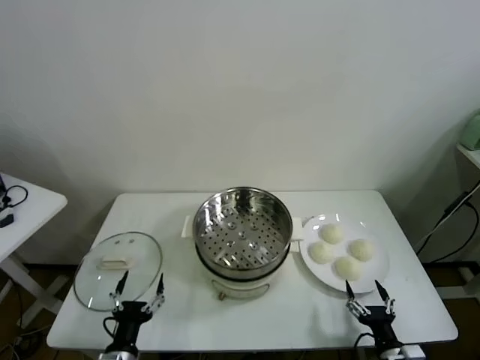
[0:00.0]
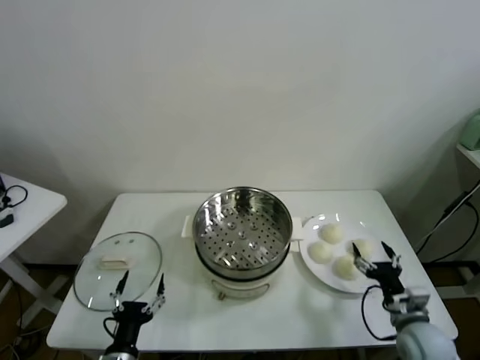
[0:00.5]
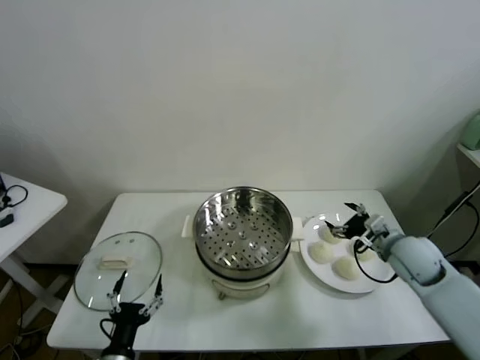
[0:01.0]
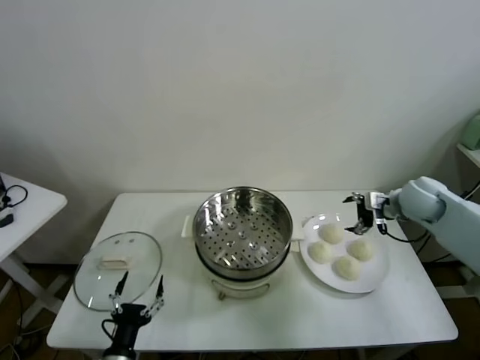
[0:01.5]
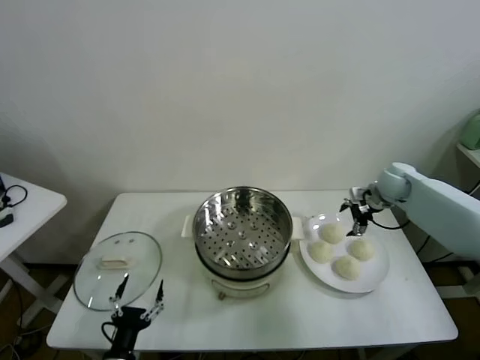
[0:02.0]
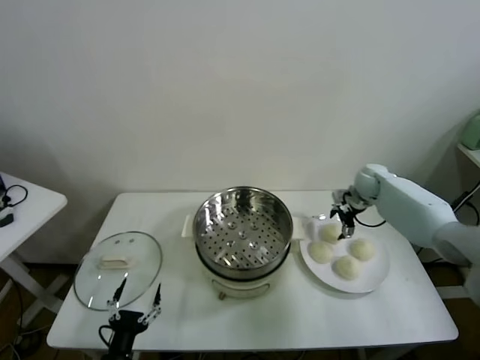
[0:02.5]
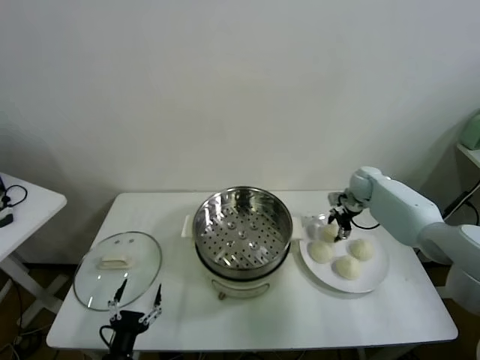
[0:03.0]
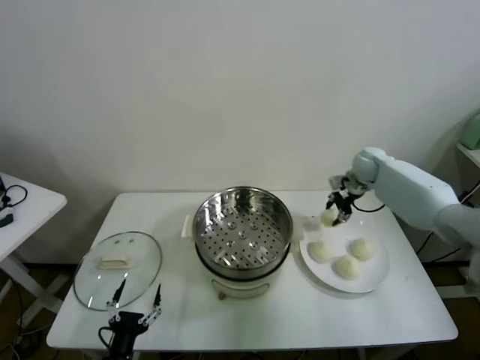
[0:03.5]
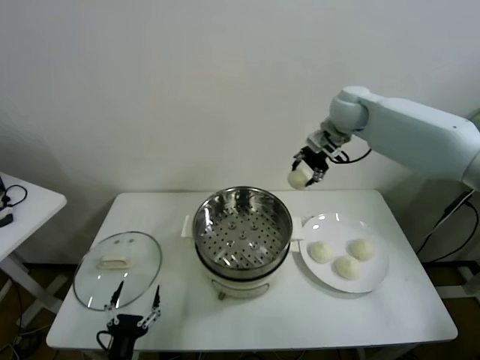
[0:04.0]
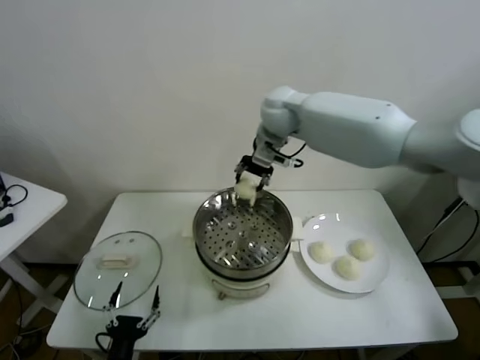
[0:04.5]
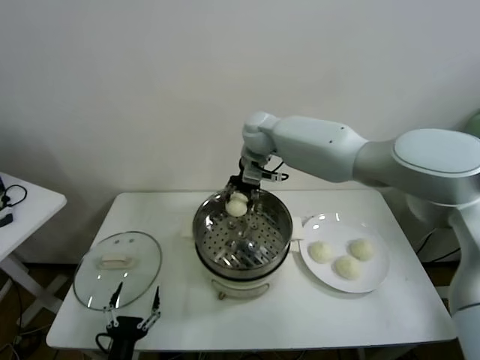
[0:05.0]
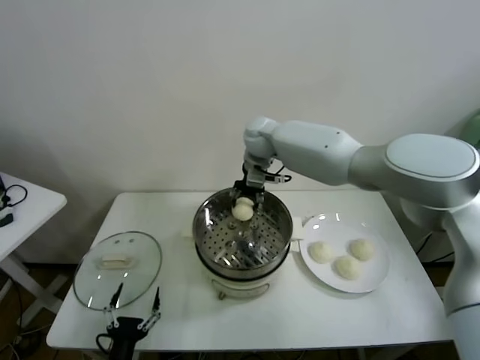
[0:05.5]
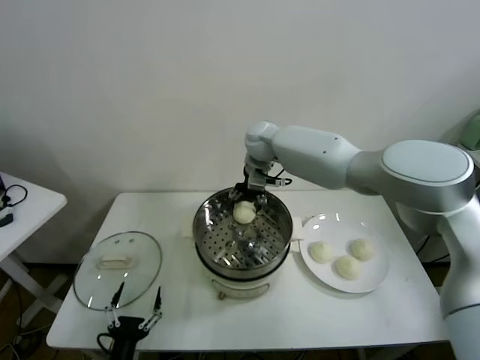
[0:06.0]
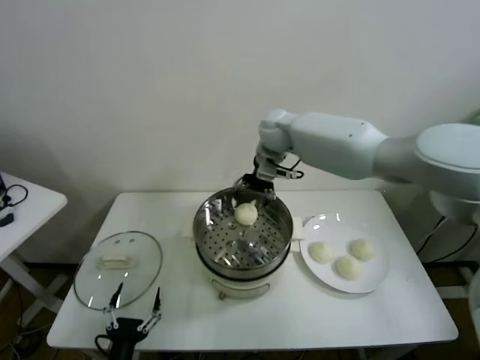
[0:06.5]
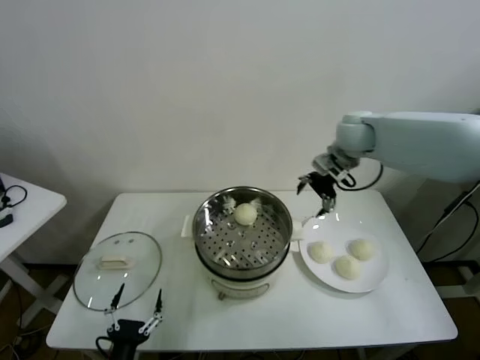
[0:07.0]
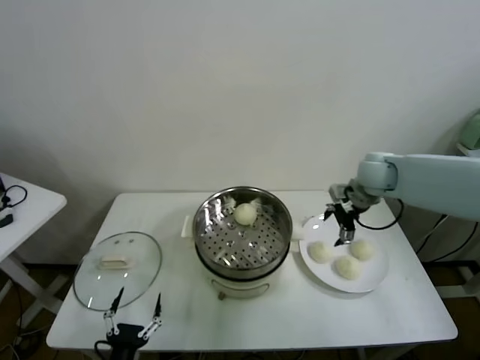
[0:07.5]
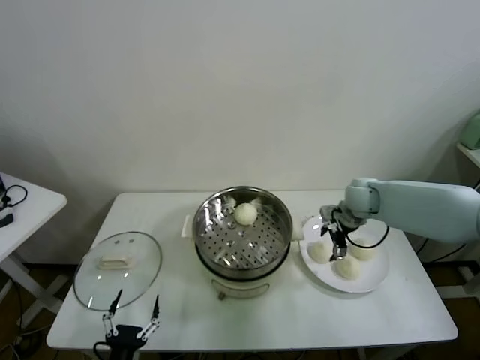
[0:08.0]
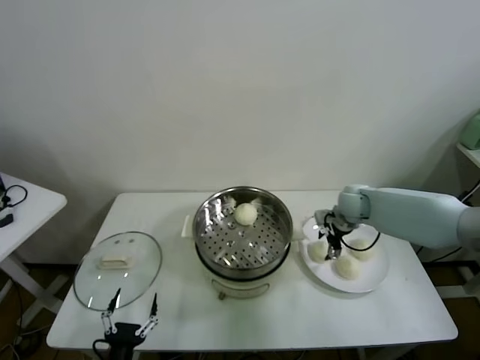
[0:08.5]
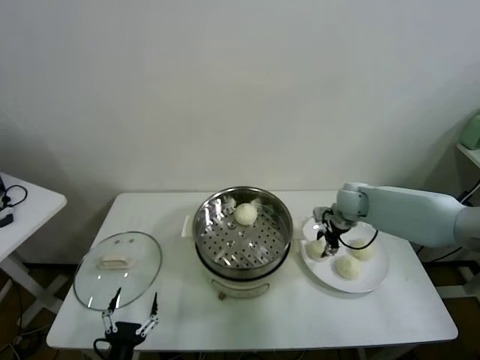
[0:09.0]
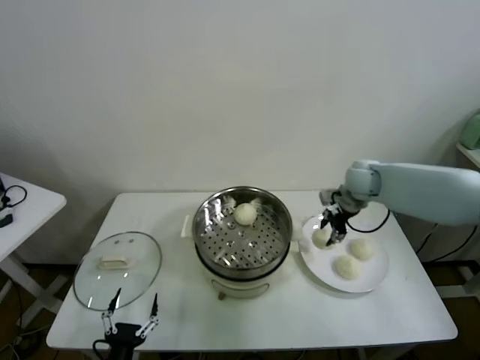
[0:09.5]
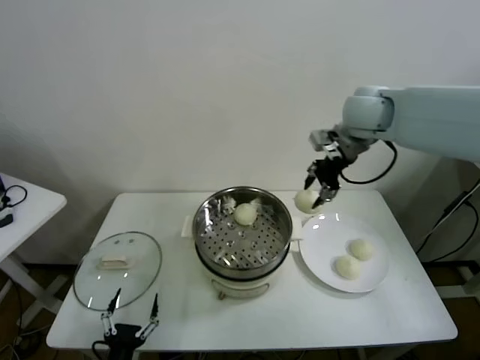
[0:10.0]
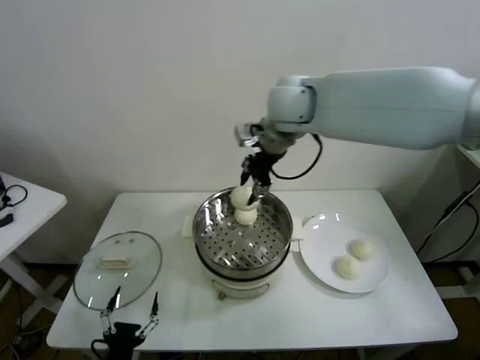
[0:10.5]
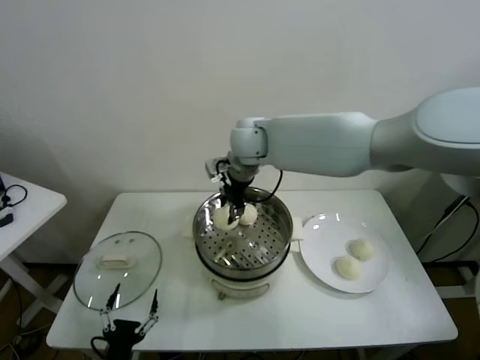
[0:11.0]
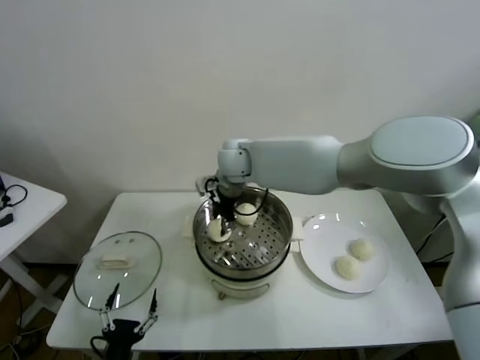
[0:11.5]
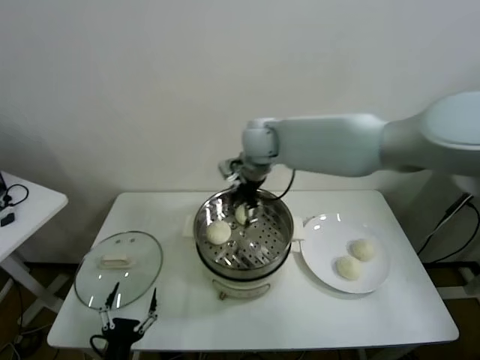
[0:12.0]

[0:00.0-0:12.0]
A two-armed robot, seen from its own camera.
Task of the whole recording: take steamed baozi put them in steamer.
Step, 0:00.0 to 0:02.5: Grasp the baozi in the plate with right gripper.
Step, 0:03.5 to 0:06.0: Place the baozi on the steamer with right gripper.
Step, 0:06.5 to 0:08.5: Grasp the baozi in the plate with right gripper.
Step, 0:09.0 to 0:11.5: Place the baozi on the steamer with right gripper.
0:02.0 to 0:04.0: The right gripper is displaced upward and to the left by about 30 cm, and closes up.
0:04.0 to 0:06.0: The right gripper shifts some 20 cm to the left and downward, and opens.
0:06.0 to 0:08.0: The right gripper shifts about 25 cm to the right and downward.
0:08.0 to 0:10.0: The right gripper travels upward by approximately 25 cm, and closes.
0:10.0 to 0:12.0: The right gripper heads to the left and downward, covering some 20 cm, and opens its fingers.

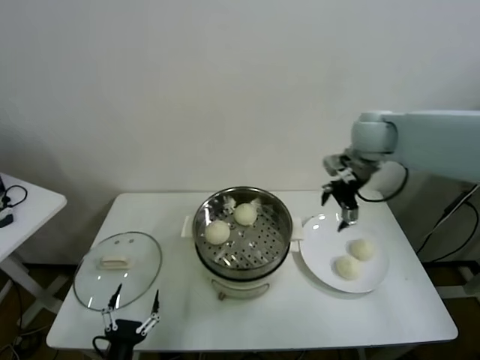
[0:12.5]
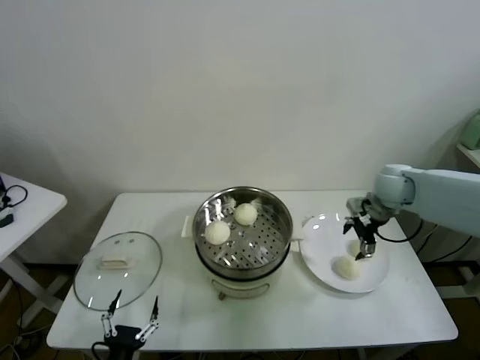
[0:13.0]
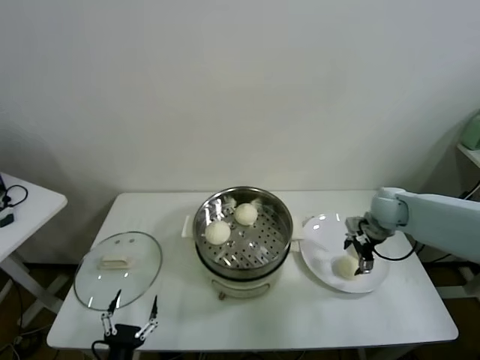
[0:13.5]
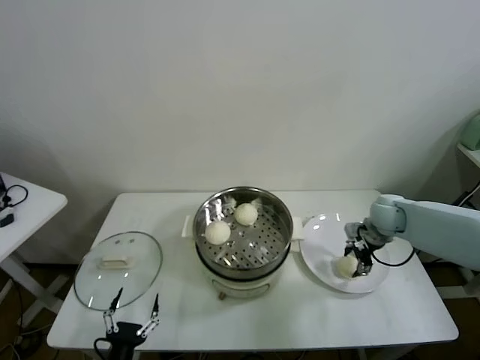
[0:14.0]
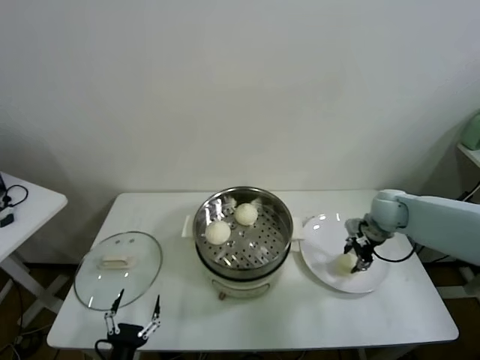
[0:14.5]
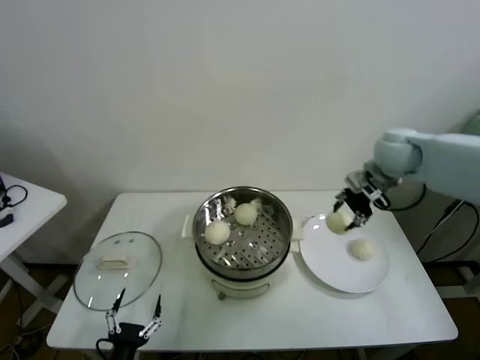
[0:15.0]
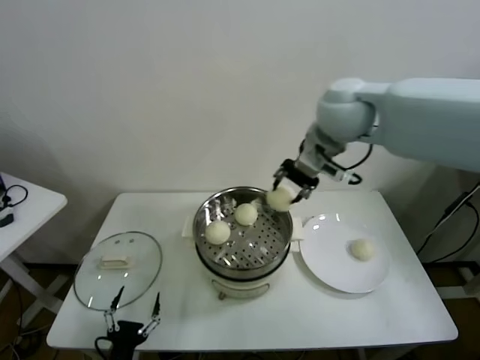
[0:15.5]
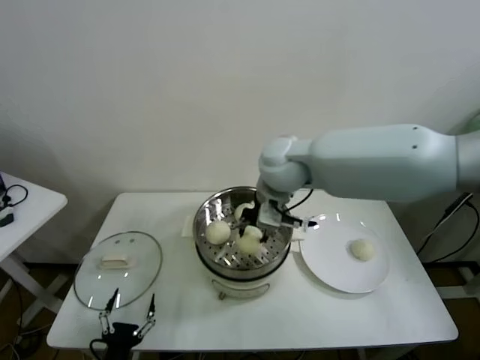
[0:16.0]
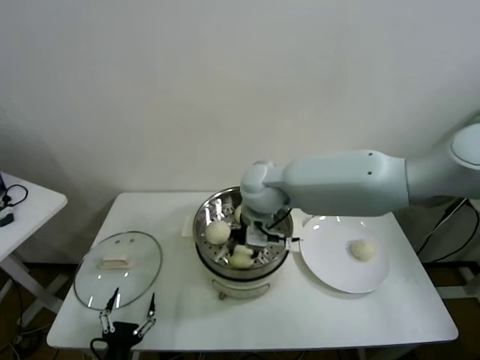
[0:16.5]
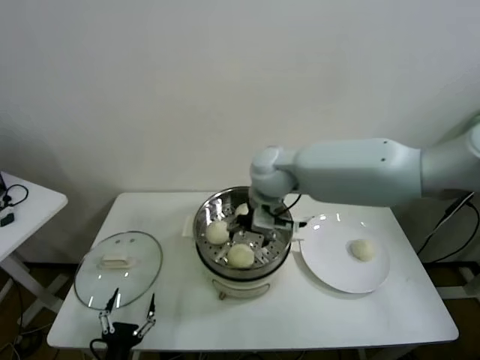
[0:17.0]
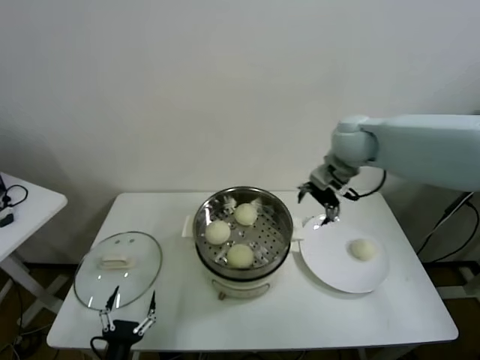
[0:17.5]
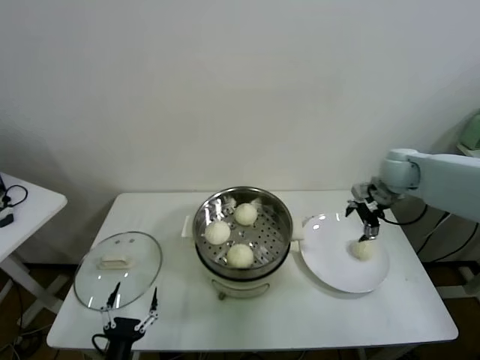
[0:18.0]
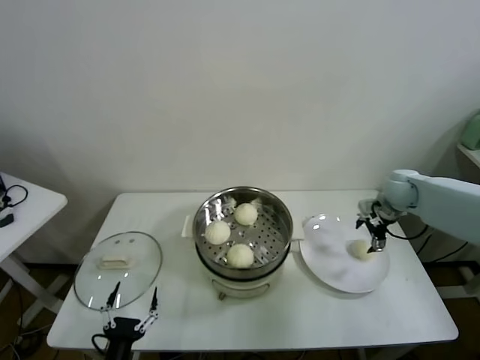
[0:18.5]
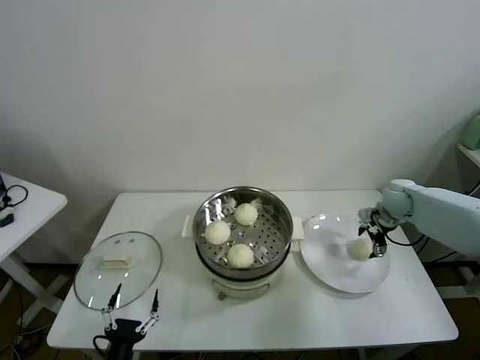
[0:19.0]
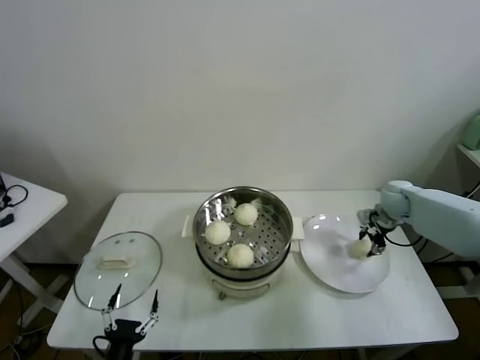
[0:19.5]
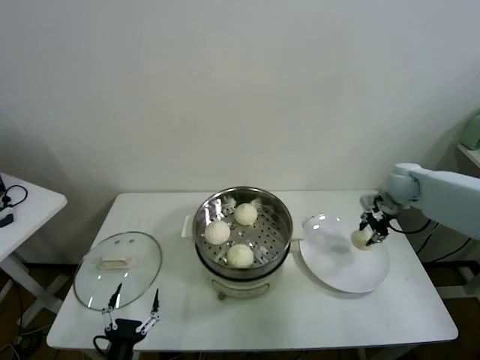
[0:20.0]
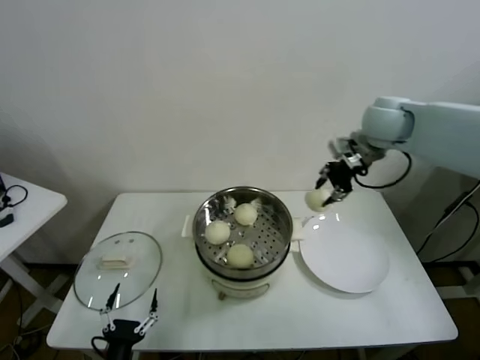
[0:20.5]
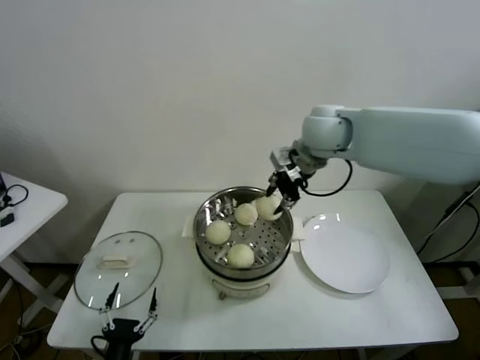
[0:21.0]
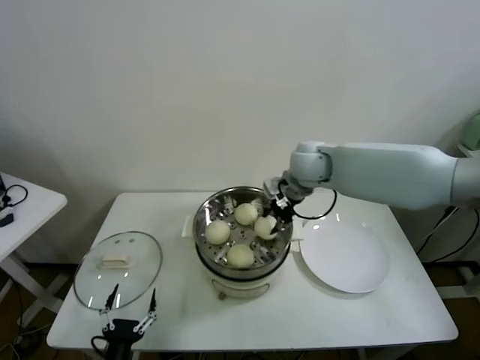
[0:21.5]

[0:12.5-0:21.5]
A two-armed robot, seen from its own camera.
Task of the whole recording: take steamed baozi put them in steamer.
Step, 0:12.5 to 0:14.0: Grasp the baozi in the plate with right gripper.
Step, 0:14.5 to 0:16.5: Place the baozi on the steamer with right gripper.
Step, 0:17.0 to 0:19.0: Grasp the baozi in the plate with right gripper.
0:12.5 to 0:14.5: The right gripper shifts roughly 20 cm downward and to the right, and closes its fingers.
0:14.5 to 0:17.0: The right gripper travels to the left and upward by approximately 35 cm, and opens up.
0:17.0 to 0:19.5: The right gripper travels to the right and downward by roughly 40 cm, and closes up.
0:19.5 to 0:21.5: The right gripper shifts approximately 30 cm to the left and upward.

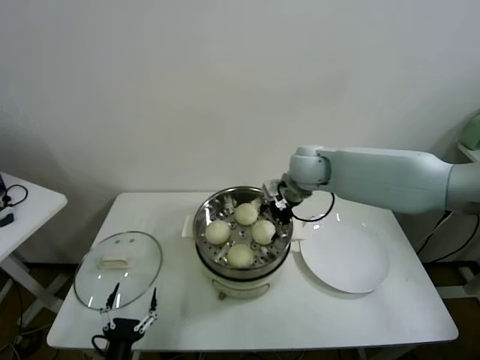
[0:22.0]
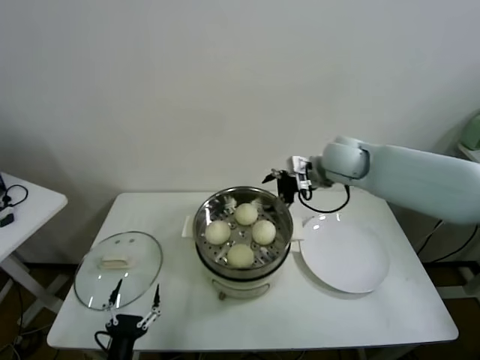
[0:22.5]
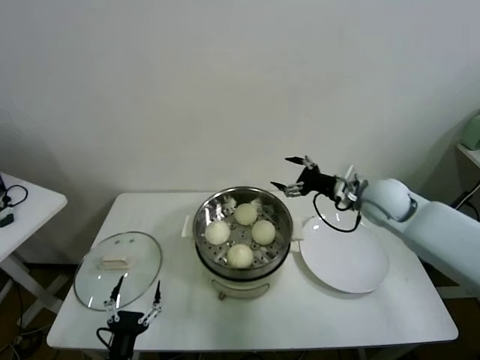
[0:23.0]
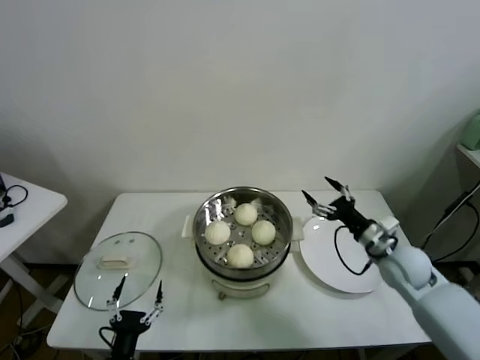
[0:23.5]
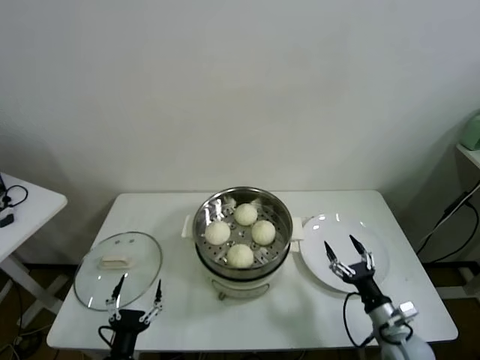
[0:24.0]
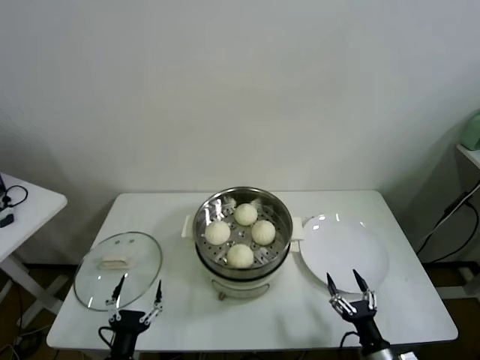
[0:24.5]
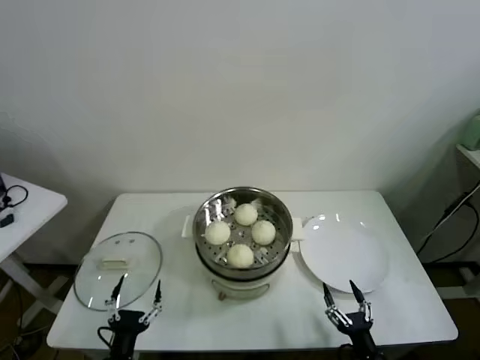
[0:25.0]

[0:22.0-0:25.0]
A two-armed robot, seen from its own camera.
Task of the whole recording: take steamed baozi put them in steamer.
0:22.0 to 0:23.5: The right gripper goes roughly 30 cm to the right, downward and backward.
0:23.5 to 0:25.0: The right gripper moves backward and downward, approximately 30 cm.
